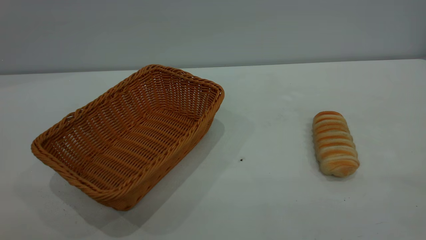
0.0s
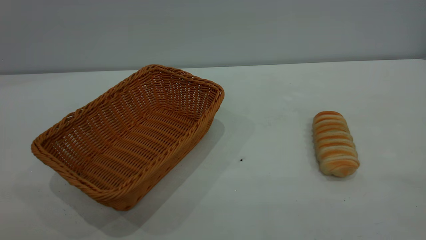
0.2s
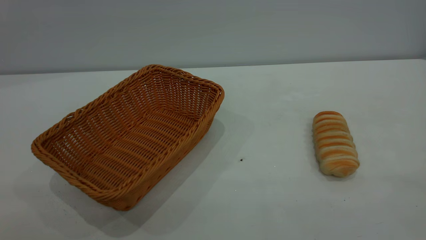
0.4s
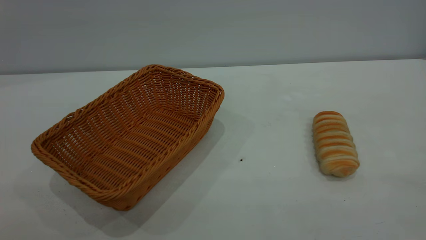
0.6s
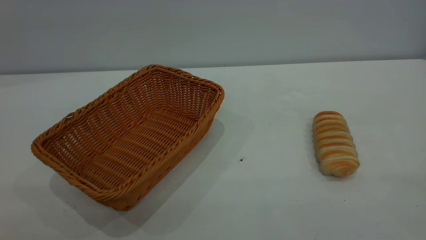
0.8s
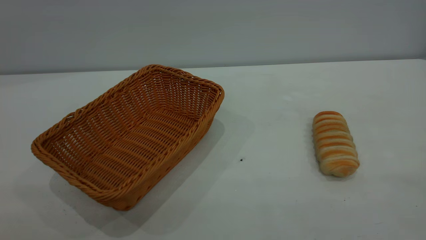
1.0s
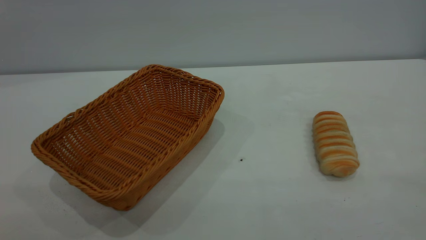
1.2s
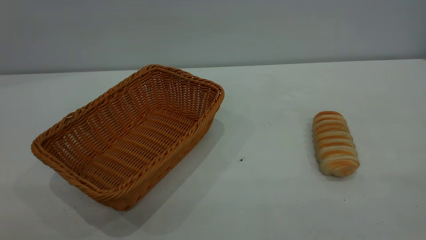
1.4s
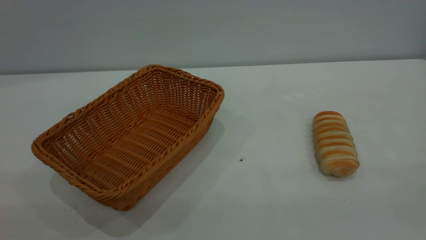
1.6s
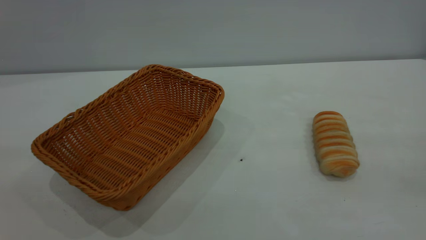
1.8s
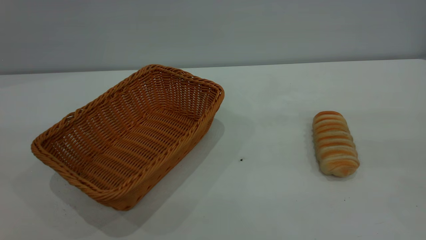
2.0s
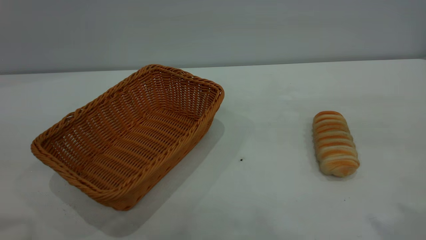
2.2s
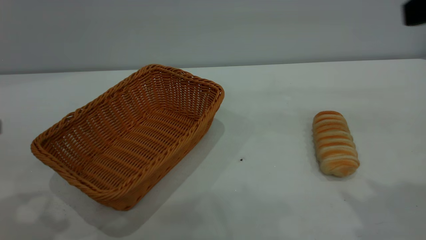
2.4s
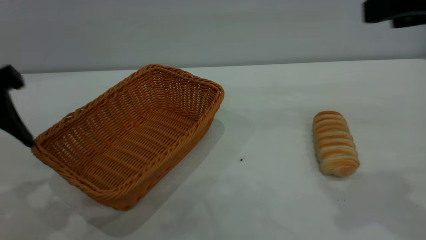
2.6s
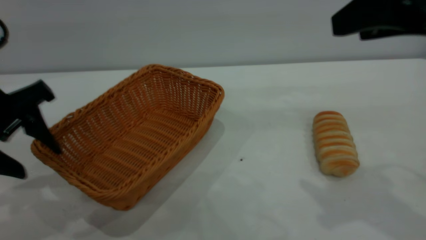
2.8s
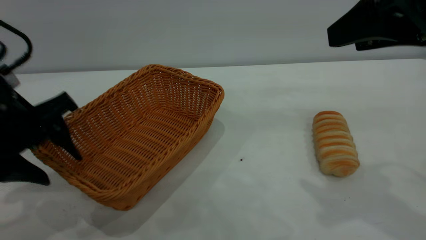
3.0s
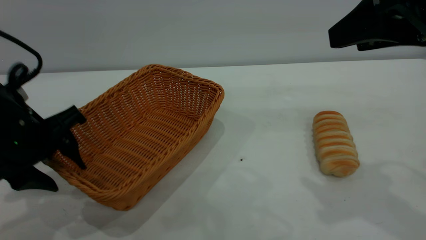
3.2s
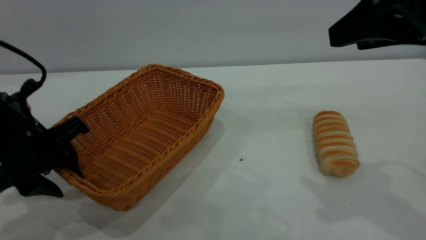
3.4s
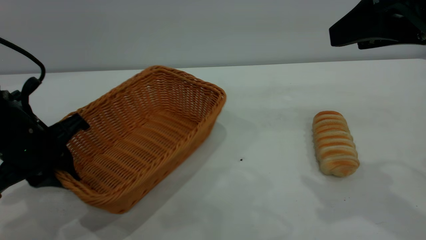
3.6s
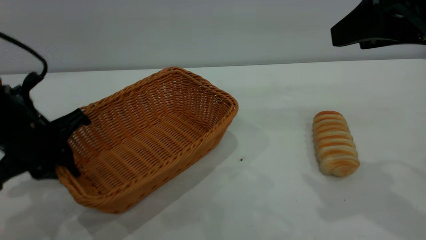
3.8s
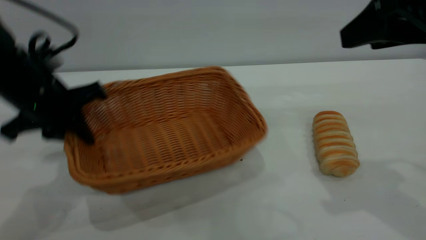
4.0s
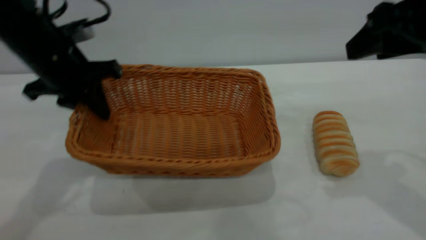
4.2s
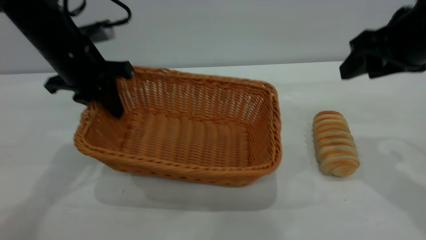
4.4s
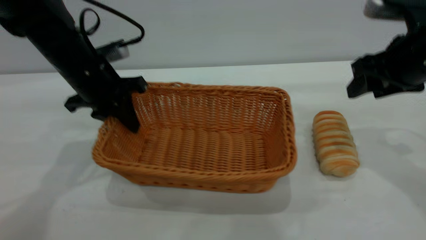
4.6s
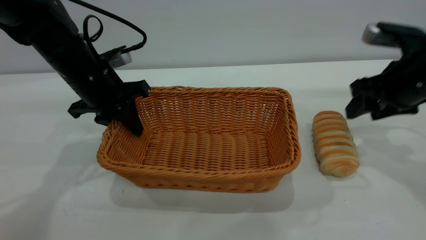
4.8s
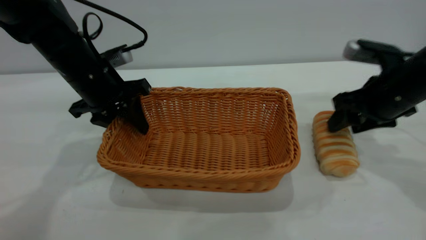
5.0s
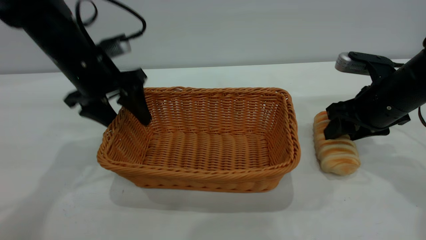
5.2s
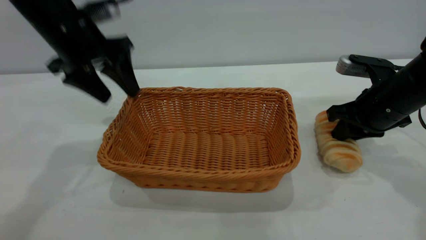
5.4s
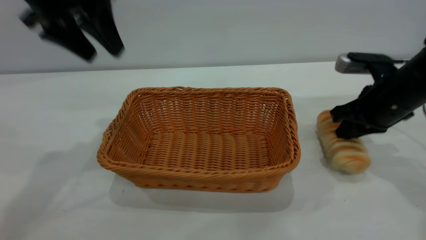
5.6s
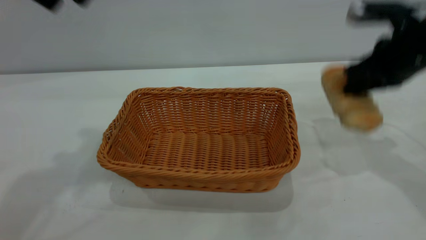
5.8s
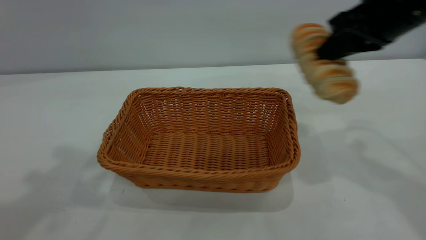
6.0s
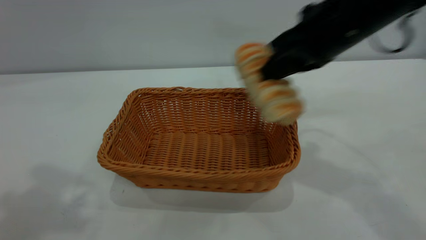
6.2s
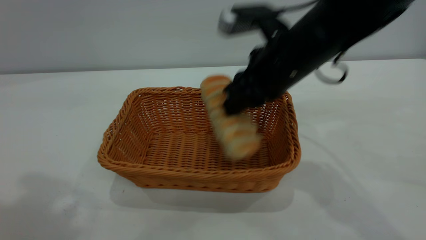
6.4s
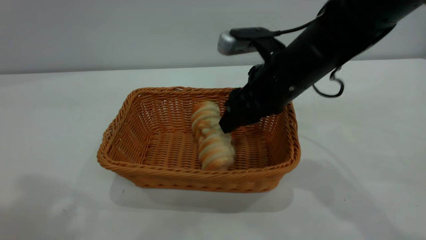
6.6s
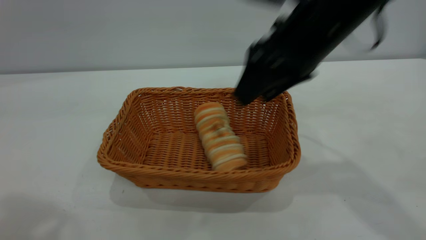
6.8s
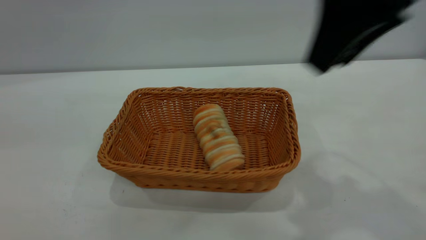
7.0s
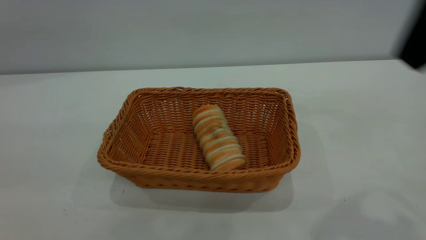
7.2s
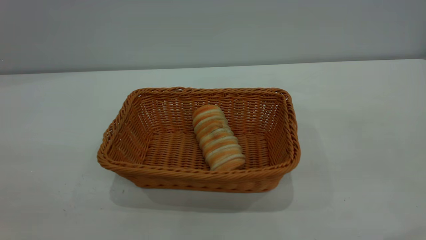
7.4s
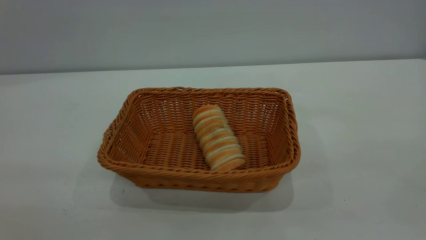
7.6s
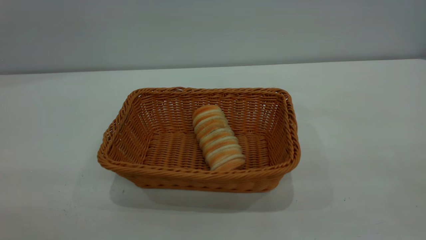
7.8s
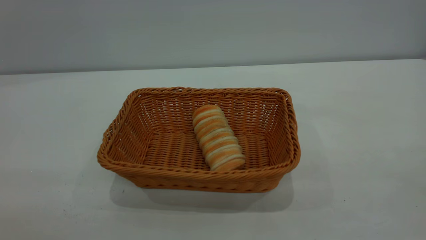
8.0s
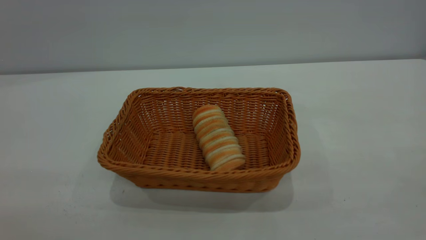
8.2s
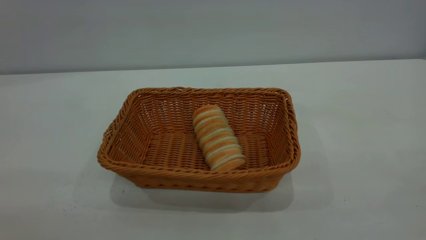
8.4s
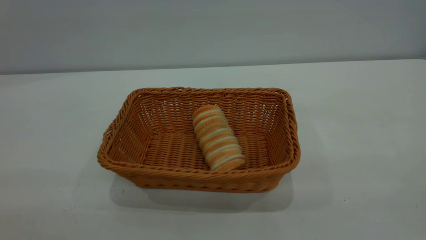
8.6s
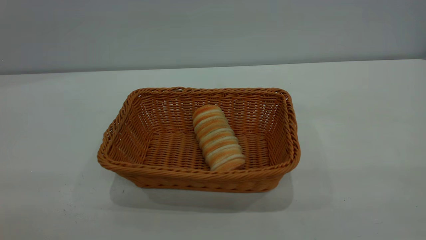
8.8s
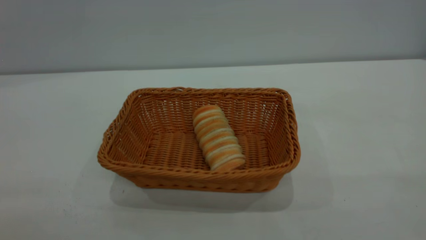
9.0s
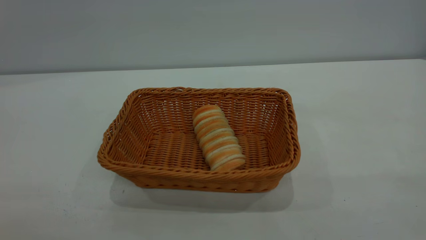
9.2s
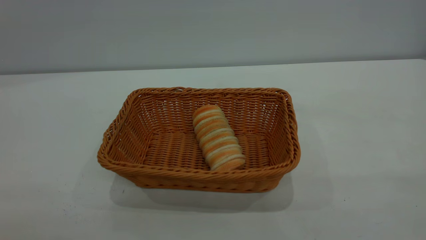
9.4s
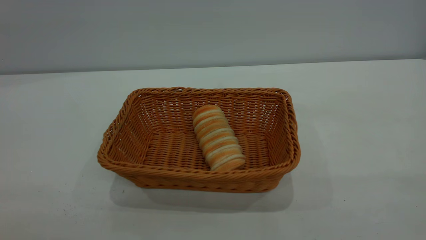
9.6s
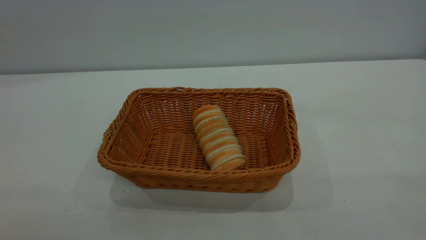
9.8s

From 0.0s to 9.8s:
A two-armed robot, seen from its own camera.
Task of the whole recording: One hand grasps the yellow basket and places it in the middle of the table, while the other hand picks up the long bread and puts it into the yellow basket.
Step, from 0.0s to 5.2s: Move the basket to the center of view.
Step, from 5.8s to 6.8s: place the bread into the basket.
From 0.0s to 1.4s: Neither gripper changes place.
From 1.4s to 2.8s: The left gripper travels forward and downward by about 30 cm; the right gripper shifts about 25 cm forward.
From 2.8s to 4.2s: The right gripper moves approximately 5 cm. Meanwhile the left gripper travels forward by some 10 cm, and closes.
From 4.2s to 5.6s: The right gripper goes approximately 15 cm downward and forward, and closes its fingers. Meanwhile the left gripper travels upward by approximately 10 cm, and opens up.
From 5.6s to 7.0s: The left gripper moves backward and upward, some 30 cm; the right gripper moves up and down over some 25 cm, changing direction 2 times, and opens up.
From 7.0s to 8.4s: The right gripper travels backward and to the right by roughly 25 cm.

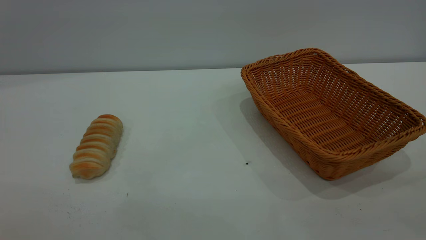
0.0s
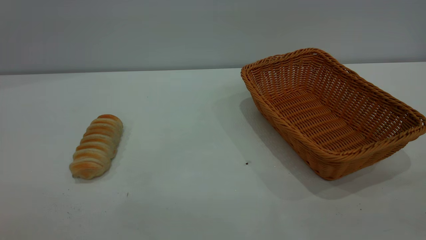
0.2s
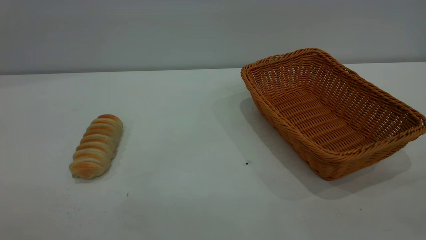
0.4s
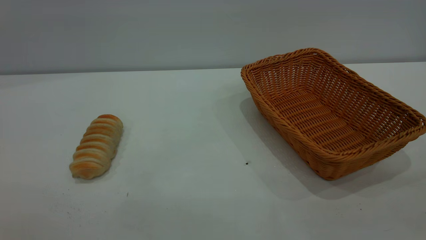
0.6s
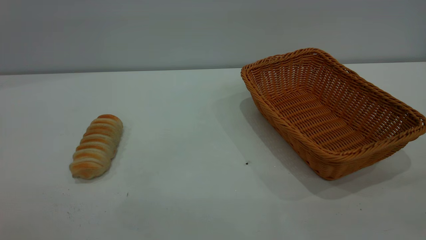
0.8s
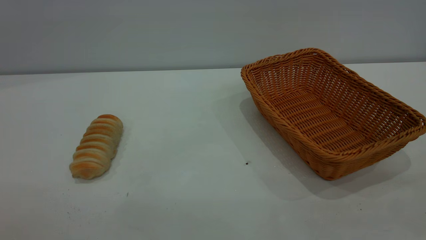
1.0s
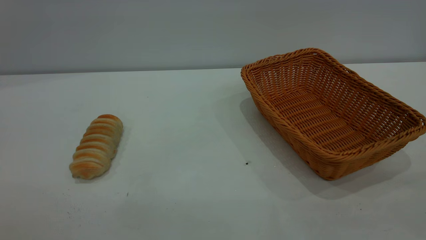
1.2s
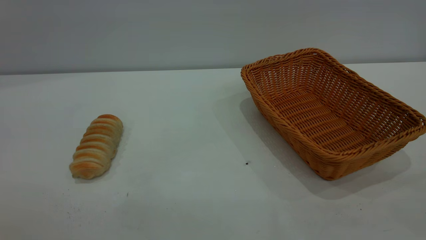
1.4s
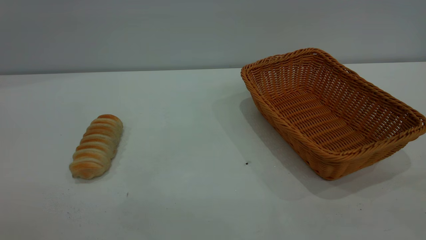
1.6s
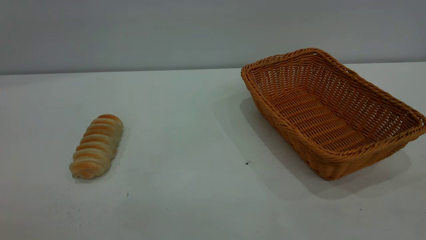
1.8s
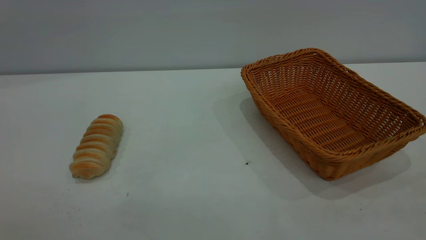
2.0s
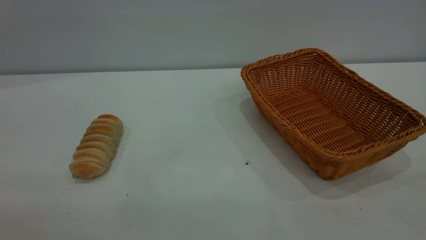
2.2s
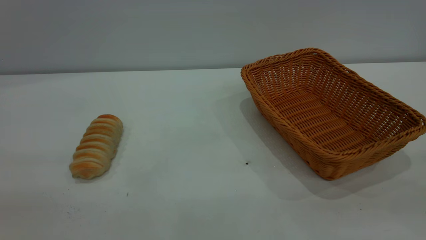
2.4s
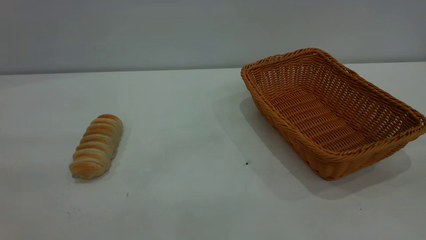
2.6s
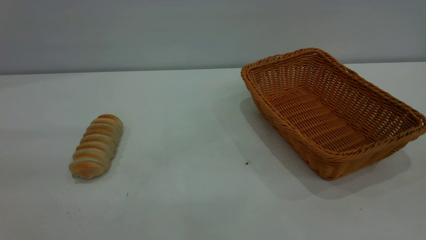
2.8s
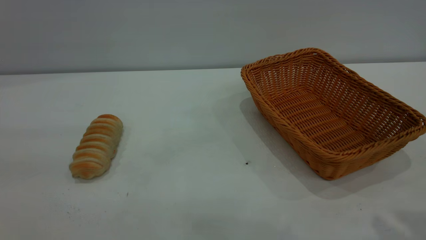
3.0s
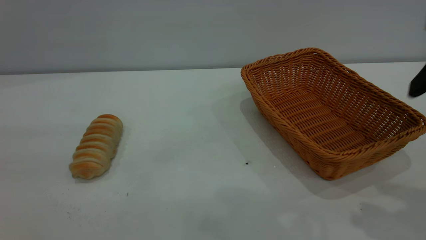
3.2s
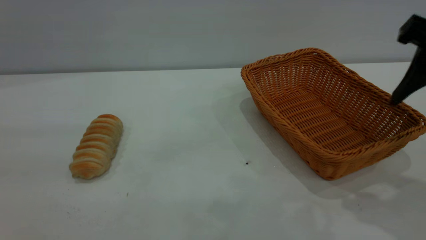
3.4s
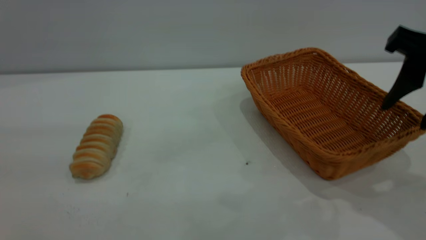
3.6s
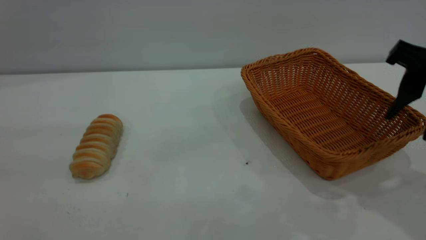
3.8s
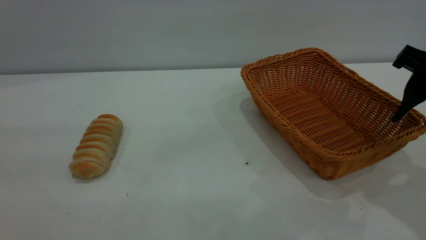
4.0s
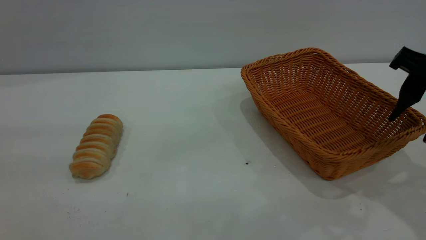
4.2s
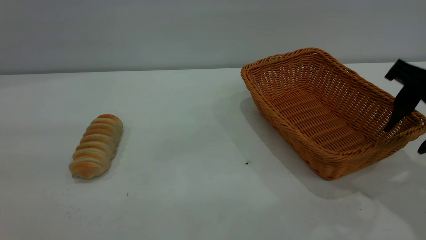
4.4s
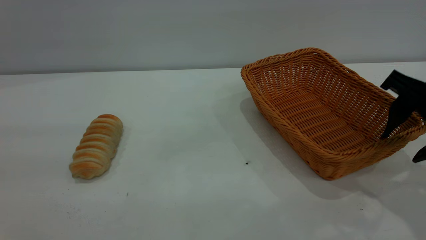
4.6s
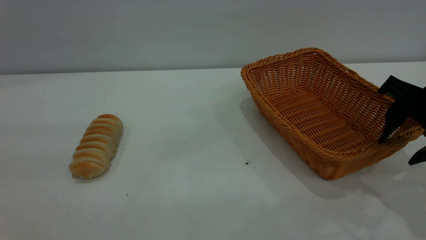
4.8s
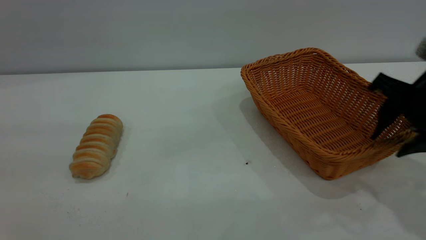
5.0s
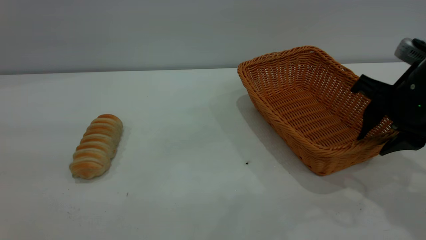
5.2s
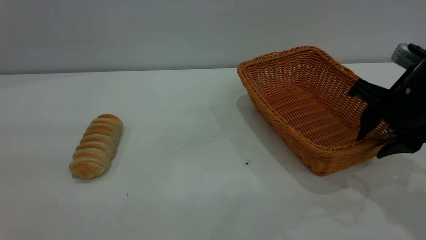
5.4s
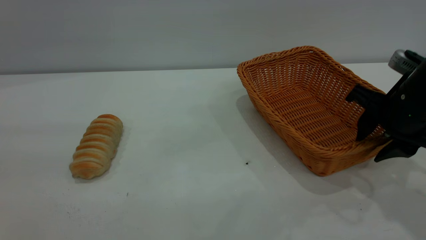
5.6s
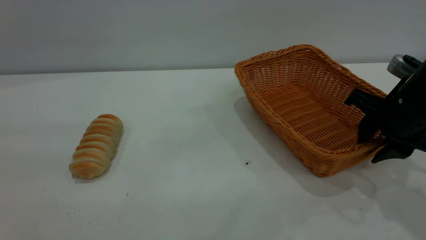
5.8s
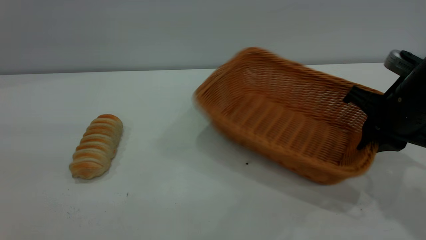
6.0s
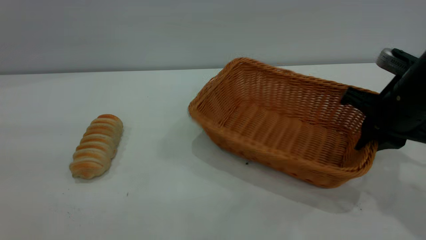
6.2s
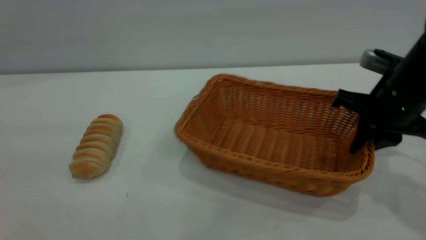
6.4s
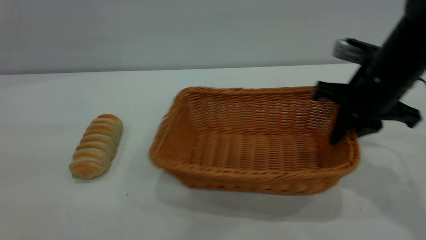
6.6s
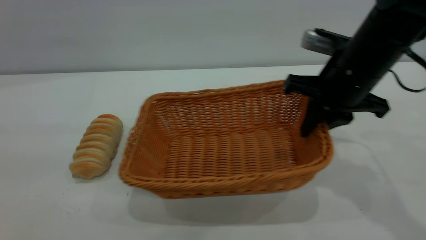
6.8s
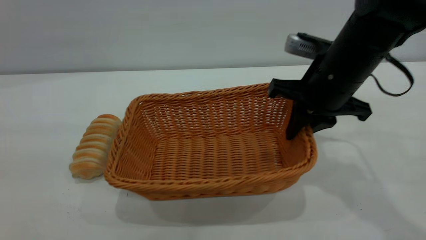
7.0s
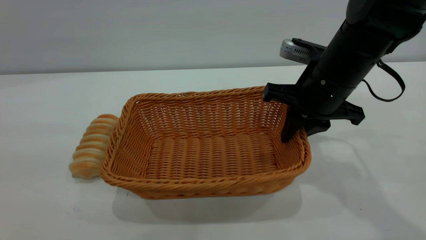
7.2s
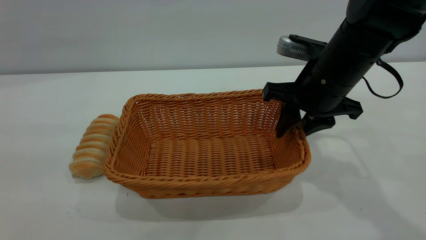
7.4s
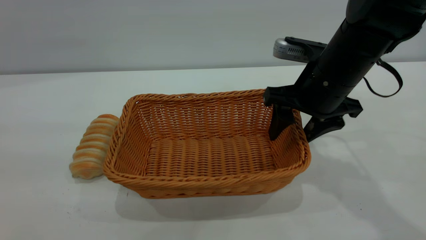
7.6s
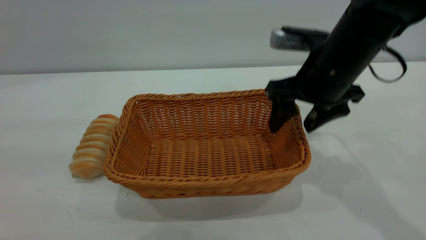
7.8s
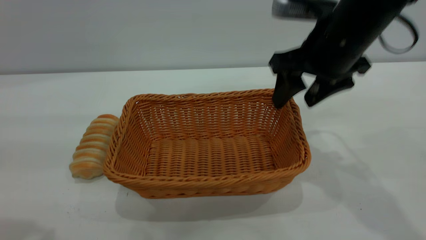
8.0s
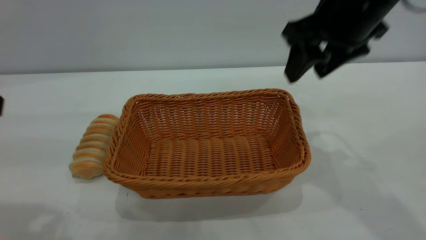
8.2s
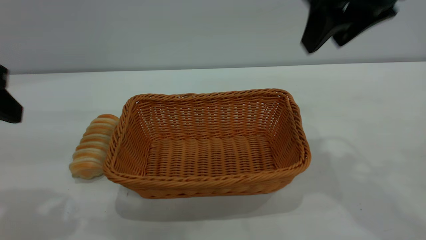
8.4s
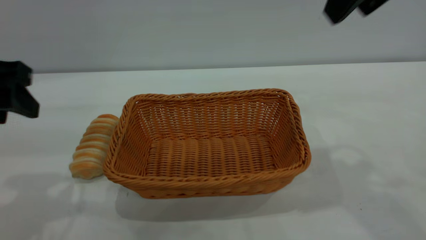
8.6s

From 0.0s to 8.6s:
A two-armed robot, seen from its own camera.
Task of the whole recording: One hand grasps the yellow basket and places it in the middle of the table, while the other hand picks up the long bread and puts it into the yellow basket.
Step, from 0.0s to 8.0s: Move the basket to the center of view.
From 0.0s to 1.4s: The two grippers keep their place.
From 2.8s to 4.4s: The right gripper shifts about 20 cm forward and downward.
From 4.4s to 5.8s: The right gripper shifts some 5 cm downward, and closes.
From 5.8s to 7.2s: The right gripper is displaced to the left by some 10 cm.
From 7.2s to 8.6s: The right gripper moves upward, about 20 cm, and opens its fingers; the left gripper moves forward and downward, roughly 20 cm.
